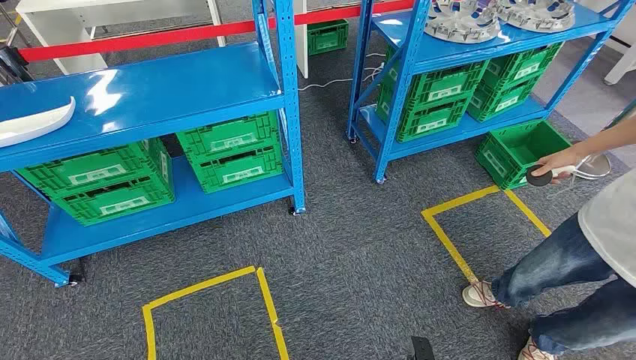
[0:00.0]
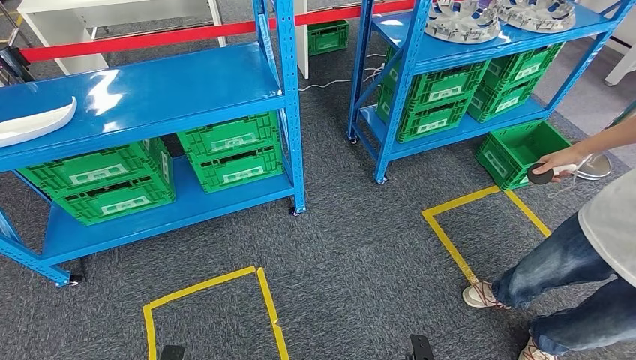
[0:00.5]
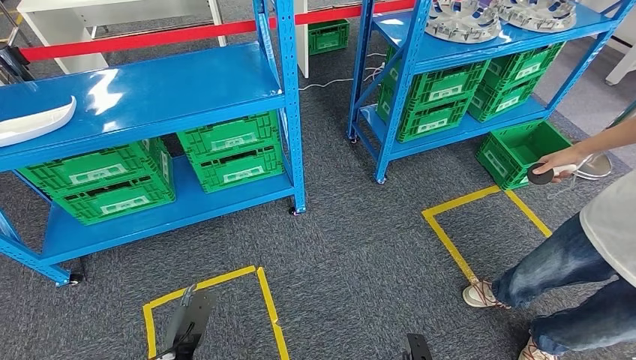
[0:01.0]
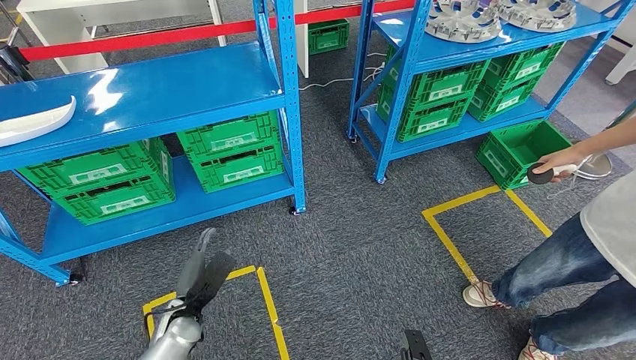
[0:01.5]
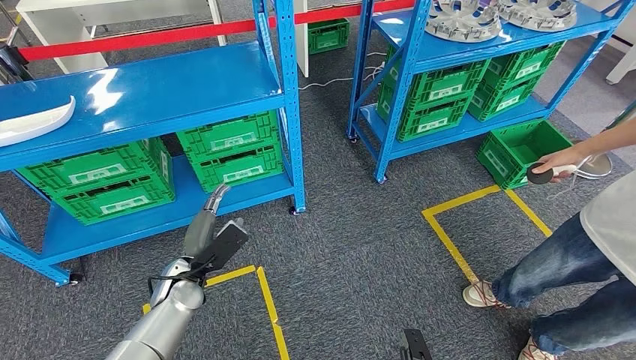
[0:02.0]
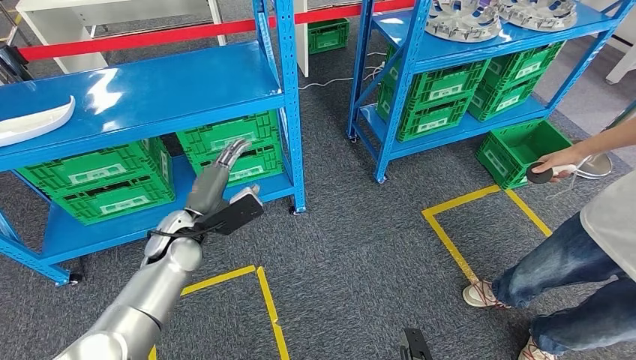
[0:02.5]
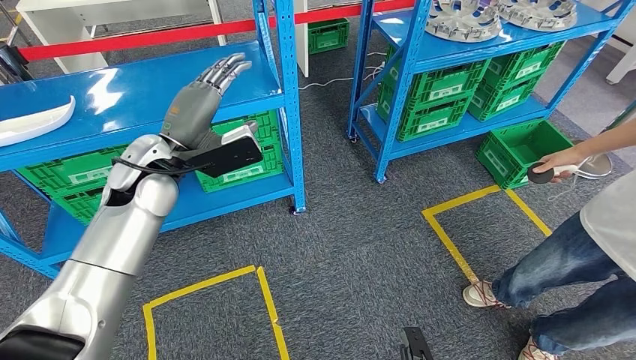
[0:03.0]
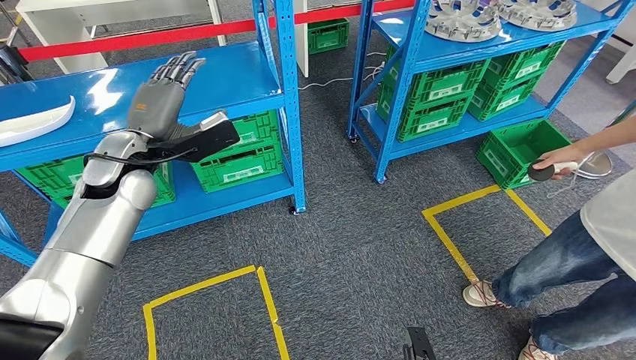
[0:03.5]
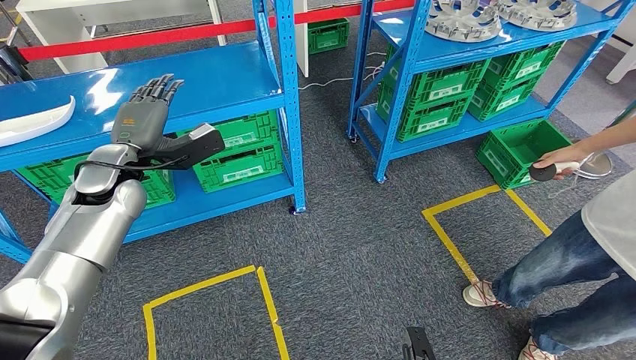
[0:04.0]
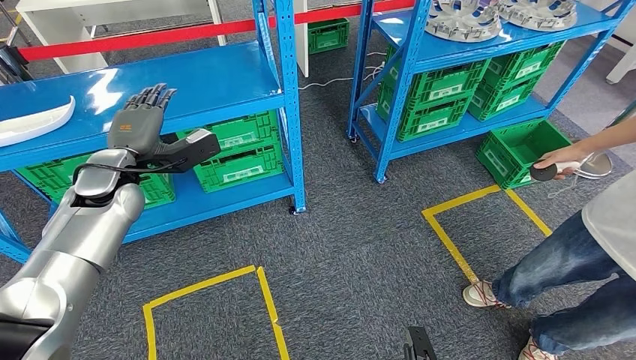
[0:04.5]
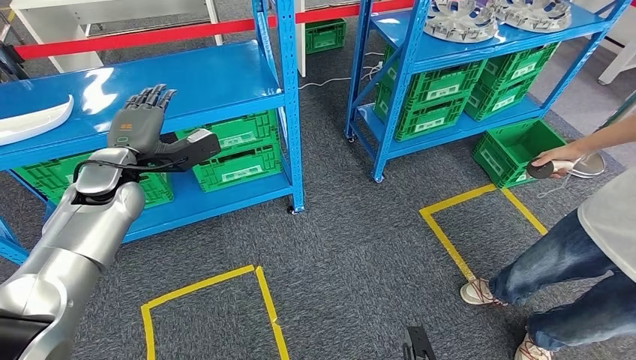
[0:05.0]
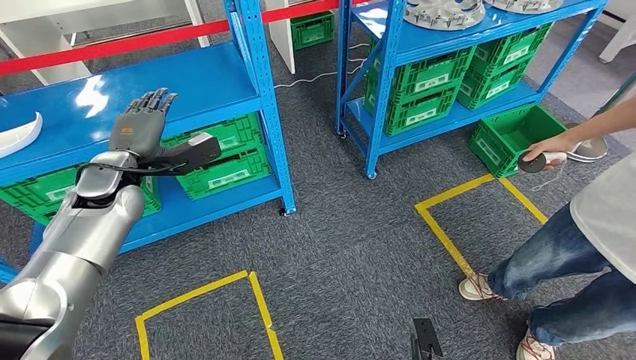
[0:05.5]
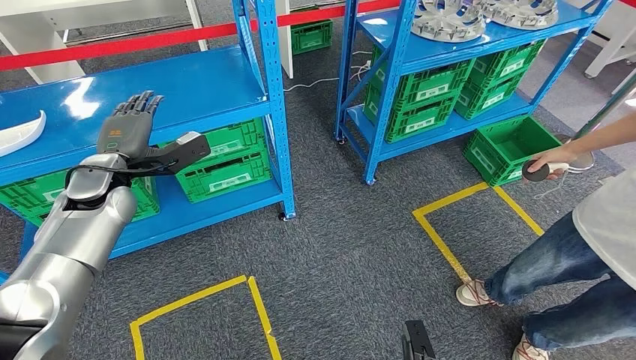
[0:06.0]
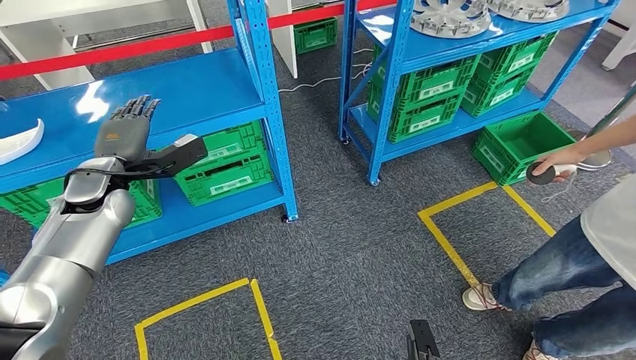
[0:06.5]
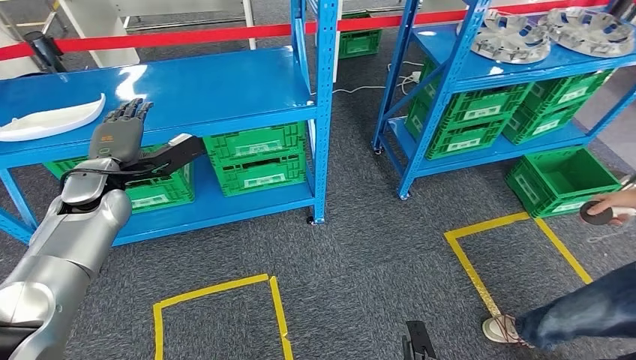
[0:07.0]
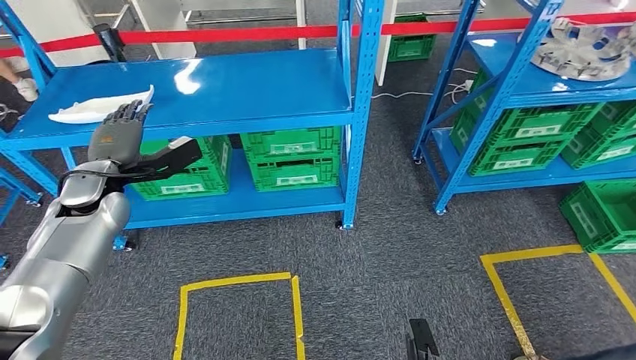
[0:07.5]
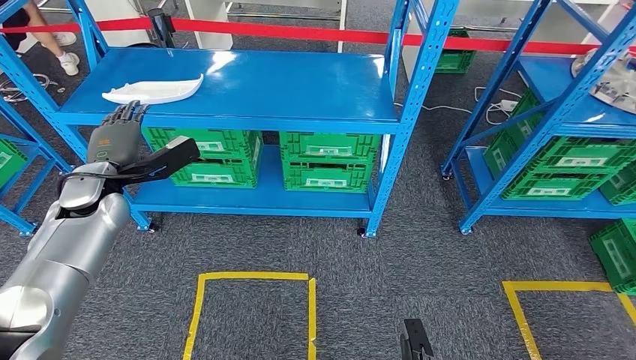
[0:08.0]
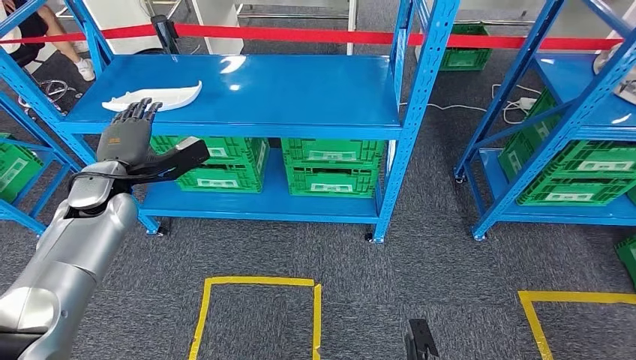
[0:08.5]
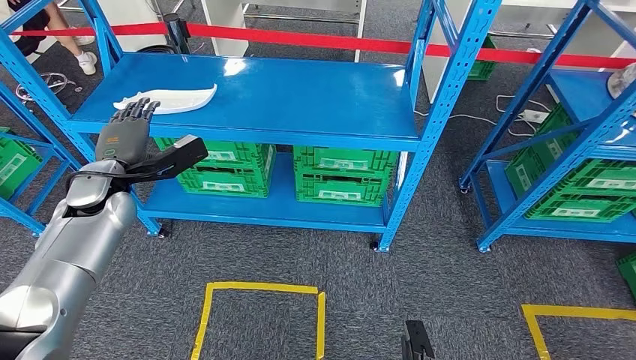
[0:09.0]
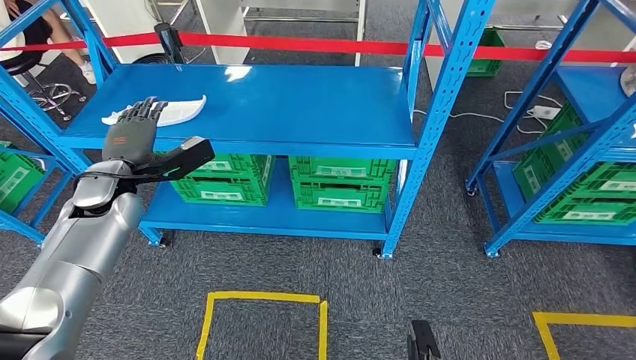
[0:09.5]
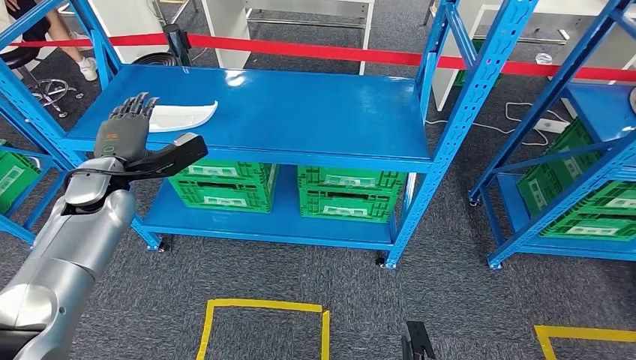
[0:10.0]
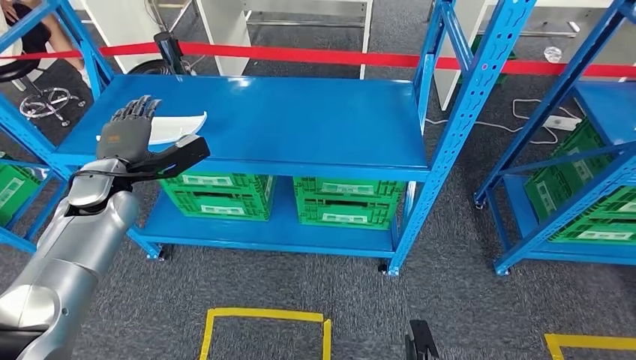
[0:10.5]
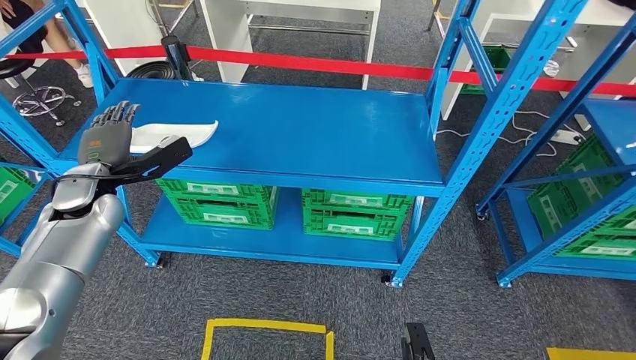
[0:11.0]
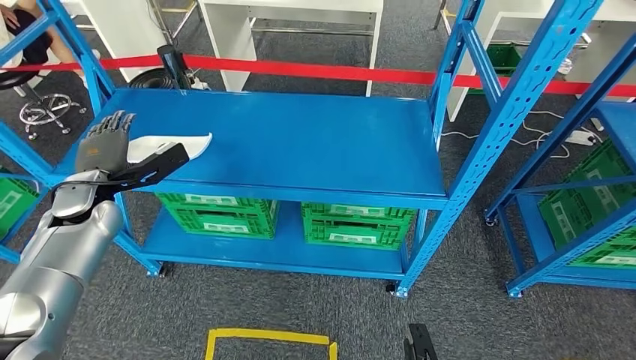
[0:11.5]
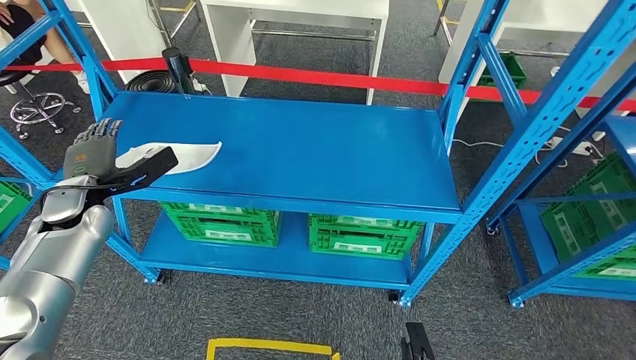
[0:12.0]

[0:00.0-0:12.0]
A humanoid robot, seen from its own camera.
0:02.0 to 0:04.0: The left hand shifts approximately 25 cm upward and forward.

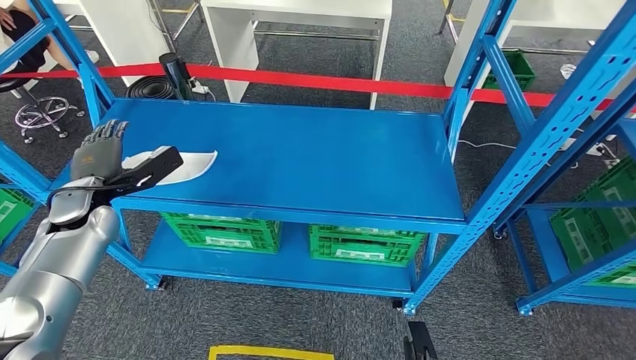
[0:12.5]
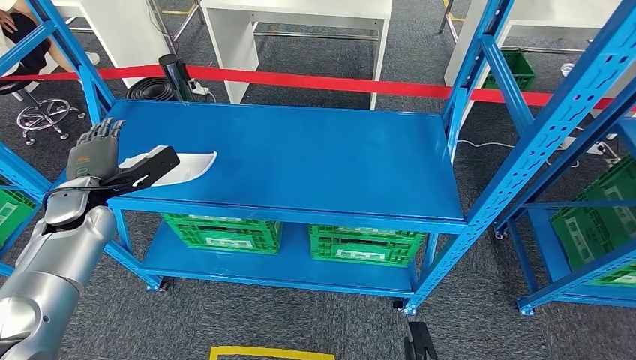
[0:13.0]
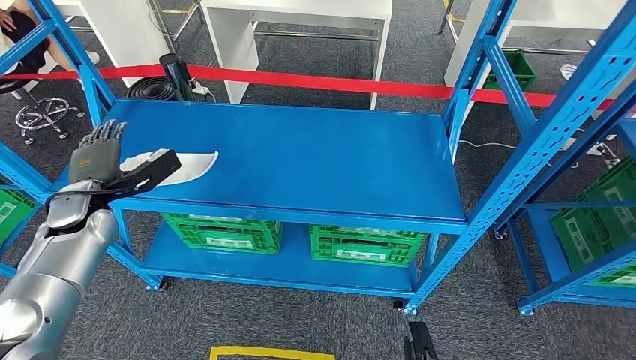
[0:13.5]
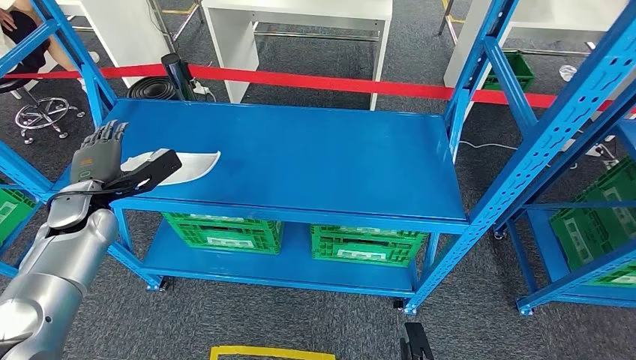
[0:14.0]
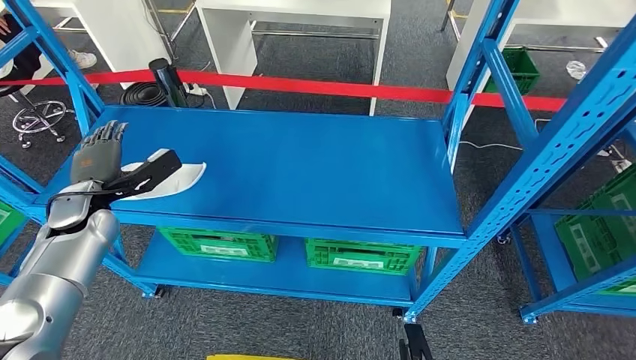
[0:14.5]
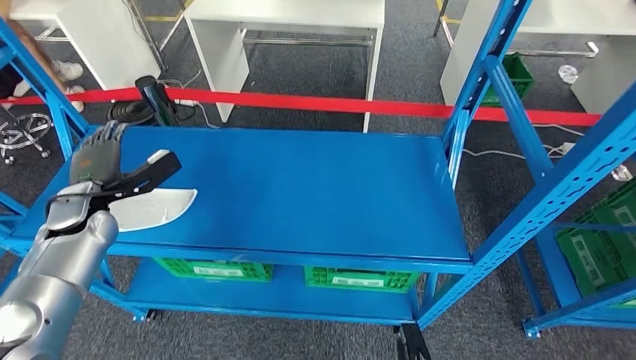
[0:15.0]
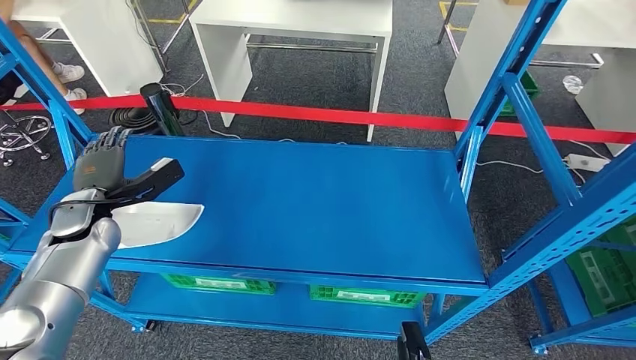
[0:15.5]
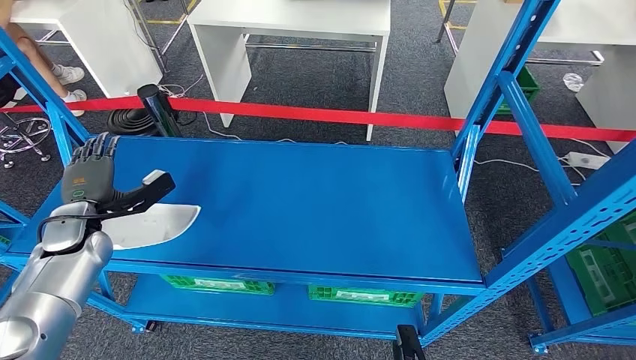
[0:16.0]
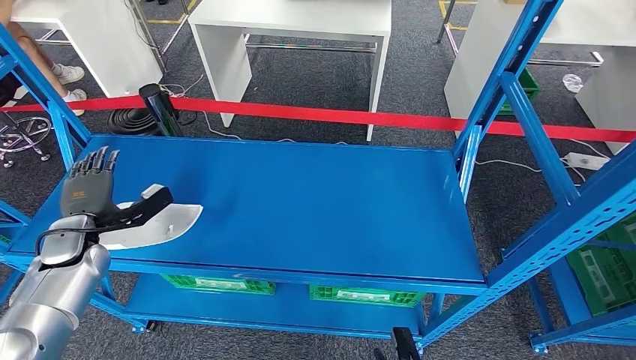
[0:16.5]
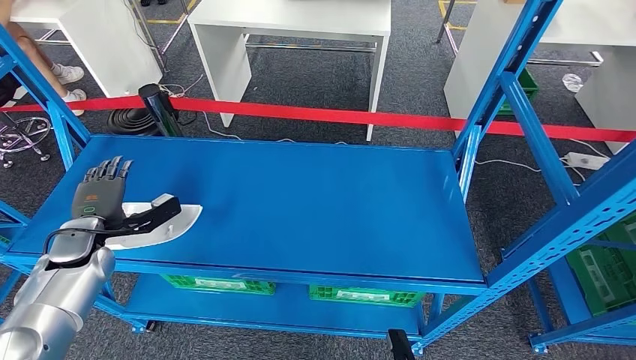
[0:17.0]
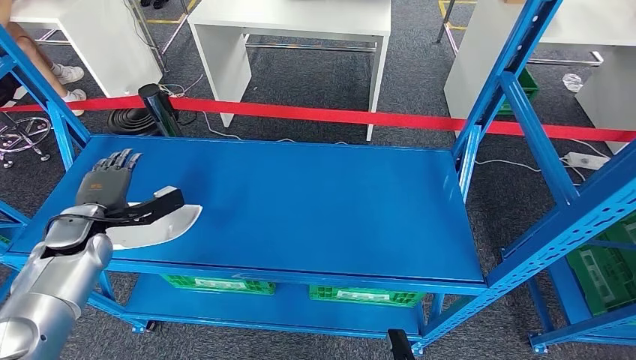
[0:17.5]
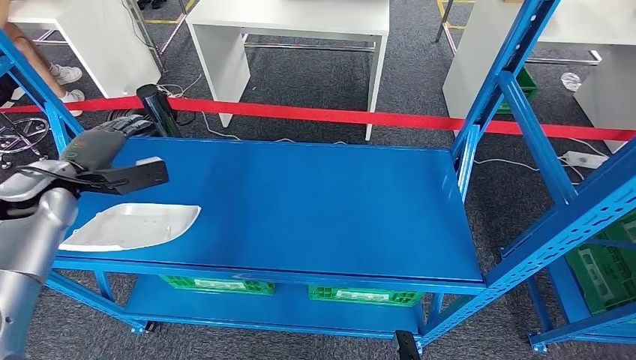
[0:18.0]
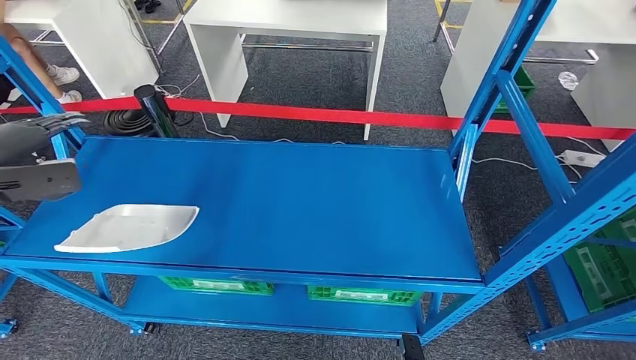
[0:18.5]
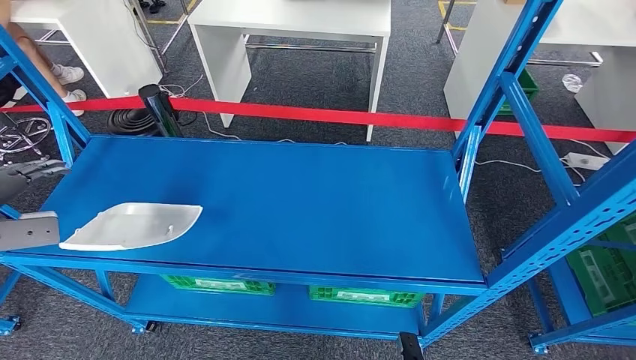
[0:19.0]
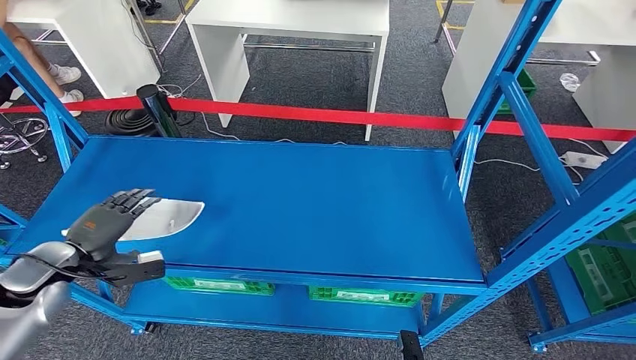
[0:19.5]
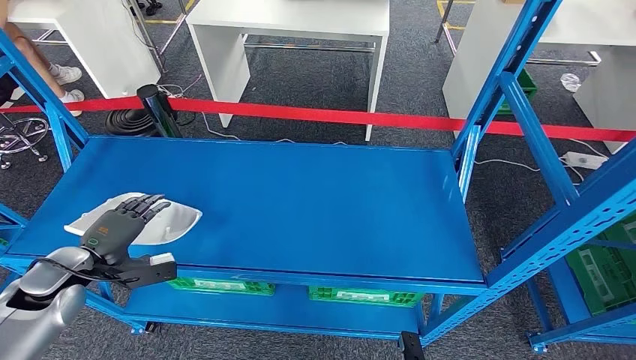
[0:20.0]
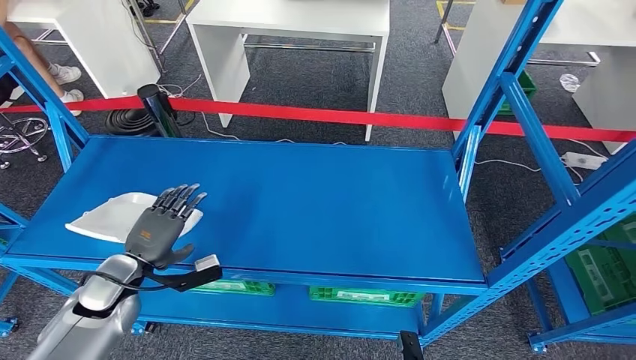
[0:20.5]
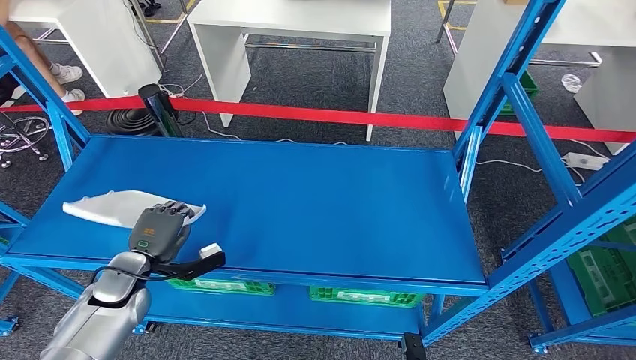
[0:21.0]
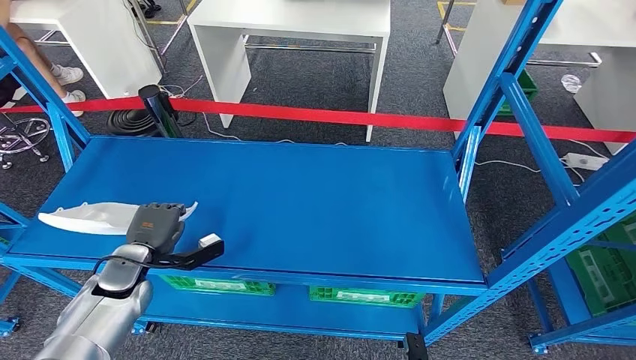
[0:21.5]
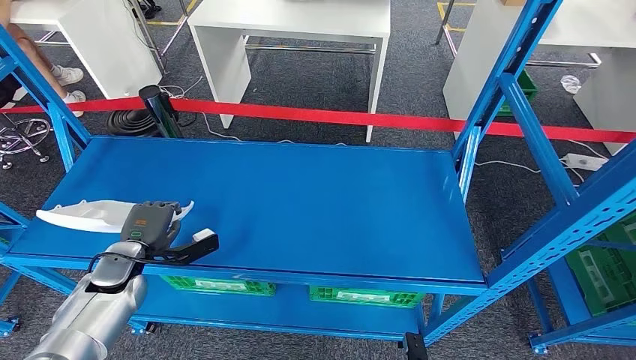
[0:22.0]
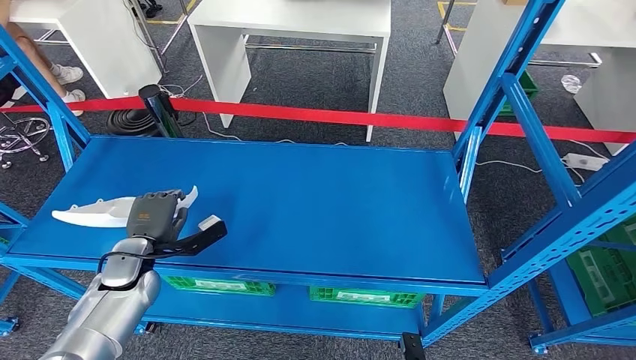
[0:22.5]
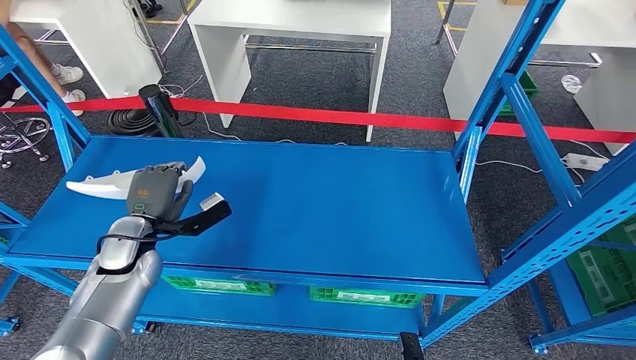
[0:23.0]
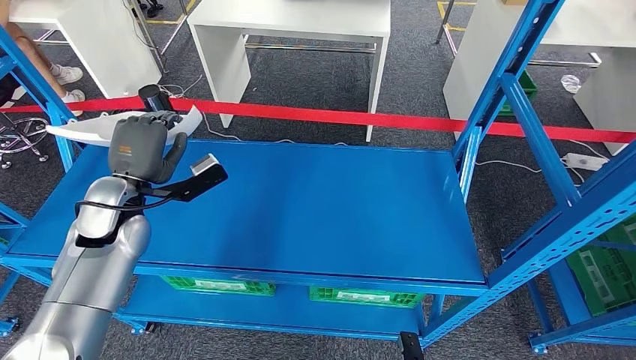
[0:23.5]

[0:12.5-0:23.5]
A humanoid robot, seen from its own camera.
Step, 0:12.5 to 0:22.5: Pick up the small component from the shelf.
0:16.0 to 0:18.0: The left hand shifts some 10 cm upward.
0:18.0 to 0:20.0: The left hand shifts roughly 15 cm downward and backward.
0:20.0 to 0:21.5: The left hand shifts roughly 10 cm to the right.
0:21.5 to 0:23.5: The left hand goes approximately 15 cm upward and to the right.
